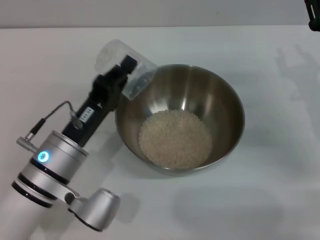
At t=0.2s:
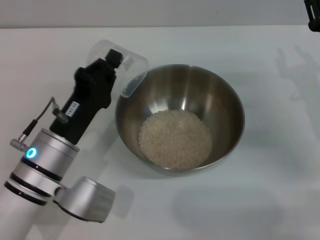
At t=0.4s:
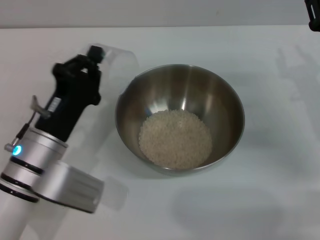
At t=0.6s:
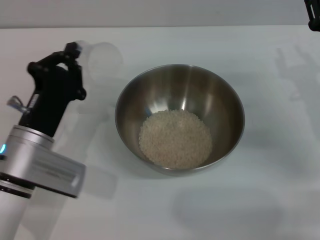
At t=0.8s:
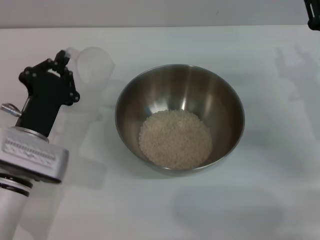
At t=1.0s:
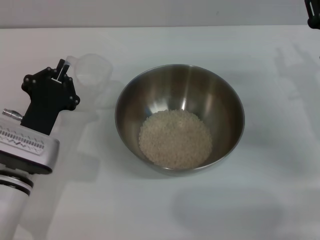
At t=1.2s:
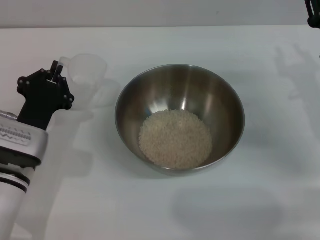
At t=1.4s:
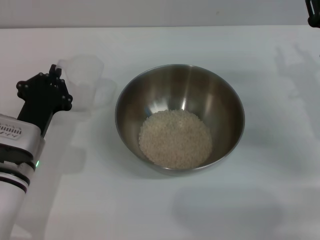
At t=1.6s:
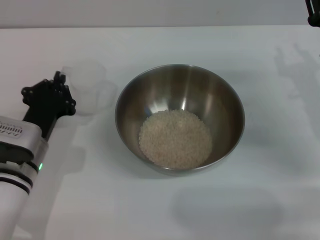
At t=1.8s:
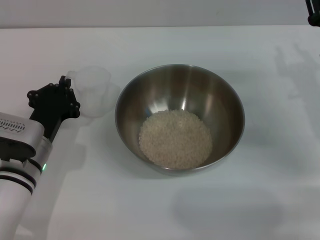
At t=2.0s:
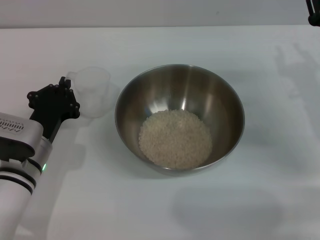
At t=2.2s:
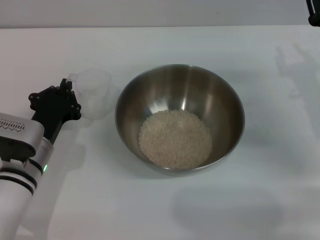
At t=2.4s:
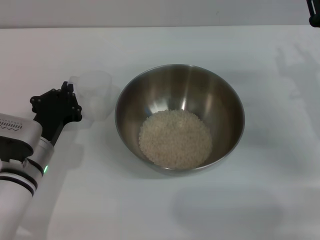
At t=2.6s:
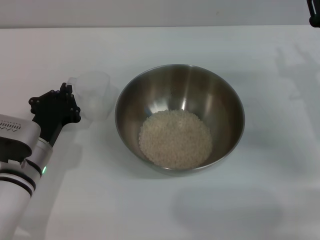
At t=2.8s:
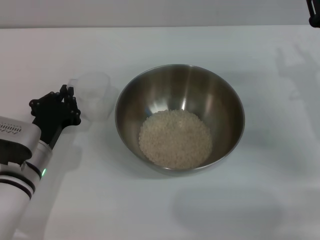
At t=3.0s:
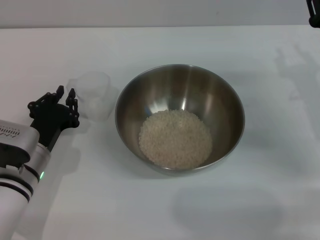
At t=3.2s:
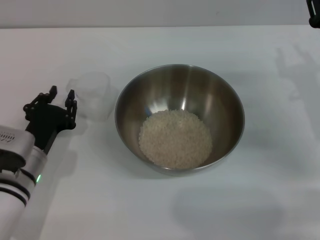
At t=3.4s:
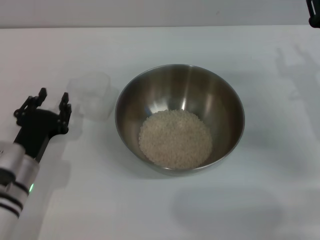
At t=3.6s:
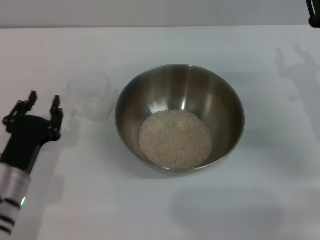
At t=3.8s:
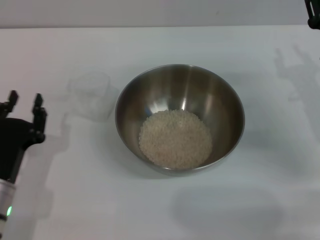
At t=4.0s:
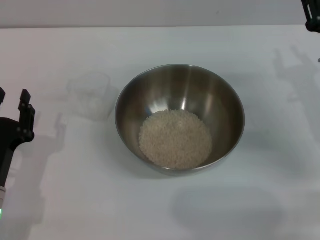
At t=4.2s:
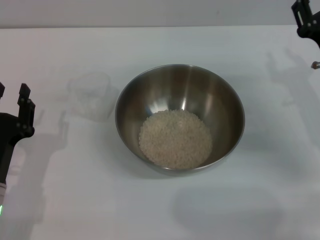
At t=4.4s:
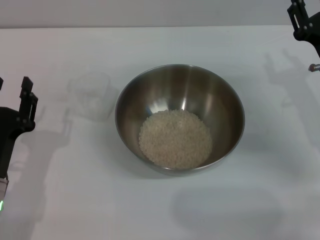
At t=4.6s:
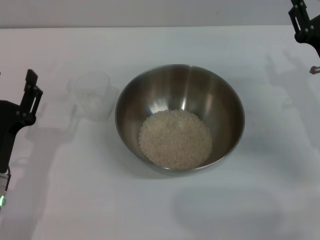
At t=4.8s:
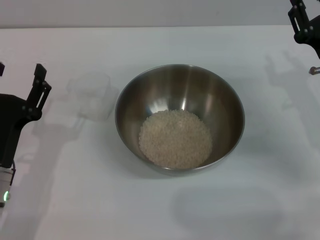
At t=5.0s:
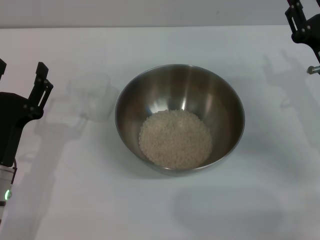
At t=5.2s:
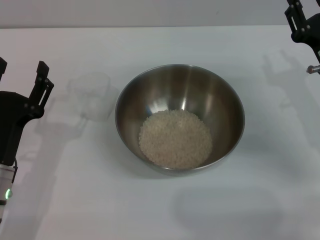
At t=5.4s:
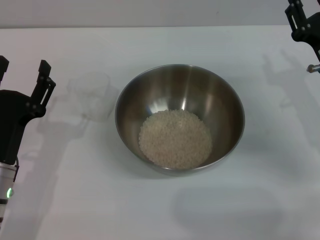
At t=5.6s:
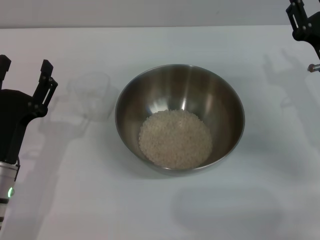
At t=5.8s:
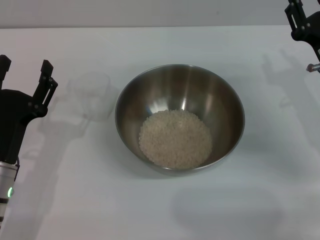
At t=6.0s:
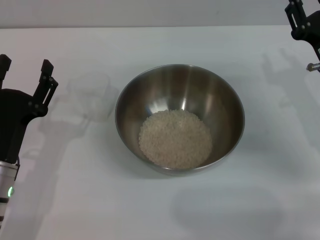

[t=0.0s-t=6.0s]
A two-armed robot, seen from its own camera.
Task of the whole recording: Place the bowl in the middle of the table with one hand and pour the rice from the grain cup into it with the other hand.
Step, t=0.2s to t=3.6s: Place the cup on the table with the left gripper.
t=0.0s to t=1.6s: The left gripper travels to the left by some 5 cm.
t=1.6s to t=3.0s: The grippers stay close to where they were, moving slightly.
t=3.0s to t=4.4s: The left gripper travels backward by roughly 5 cm, and opens.
t=4.4s to t=6.0s: The left gripper opens its fingers.
